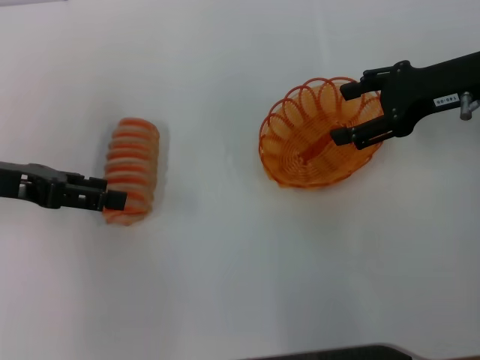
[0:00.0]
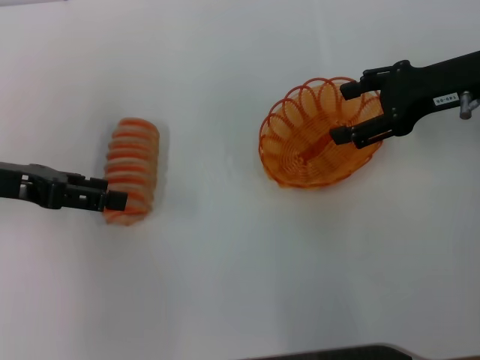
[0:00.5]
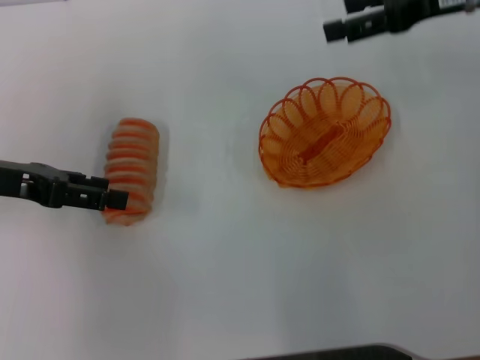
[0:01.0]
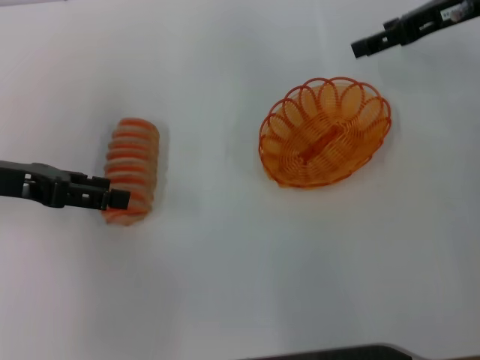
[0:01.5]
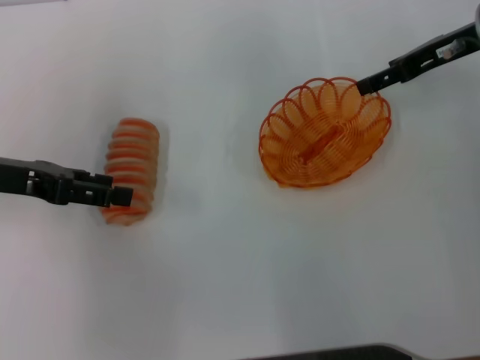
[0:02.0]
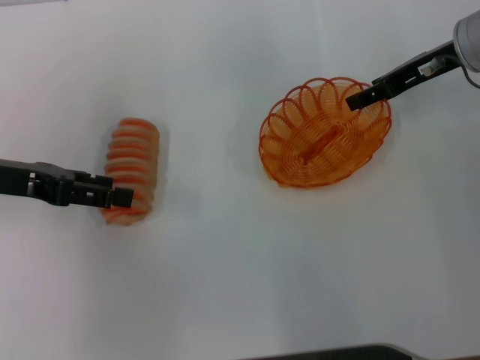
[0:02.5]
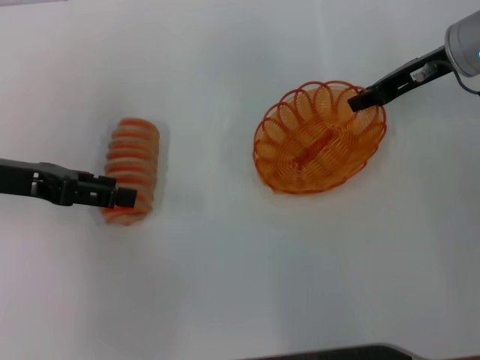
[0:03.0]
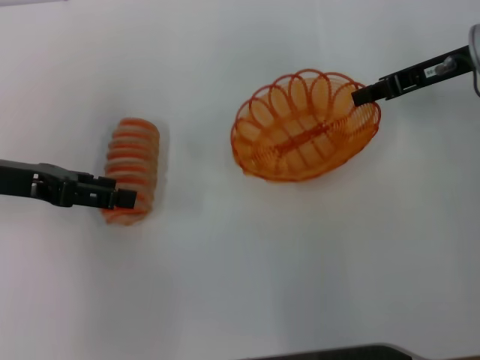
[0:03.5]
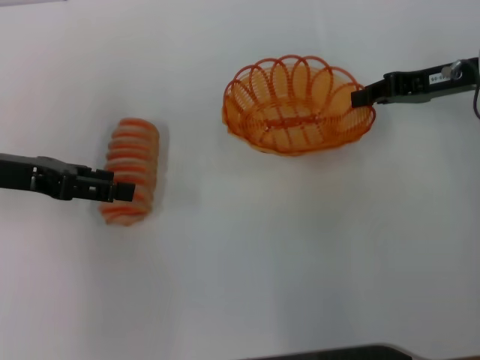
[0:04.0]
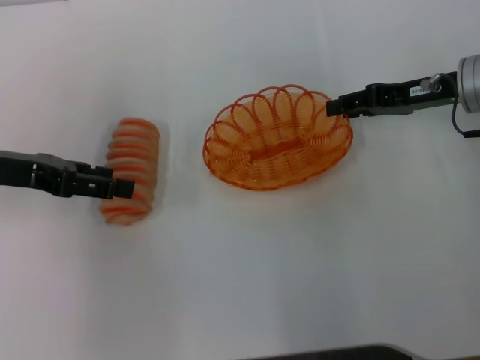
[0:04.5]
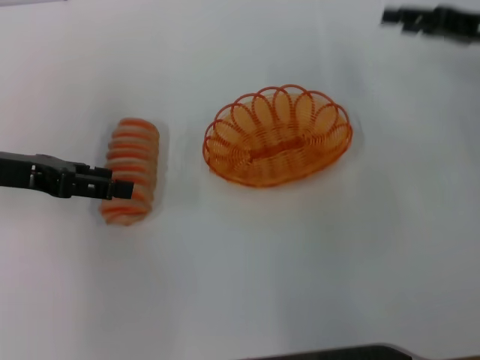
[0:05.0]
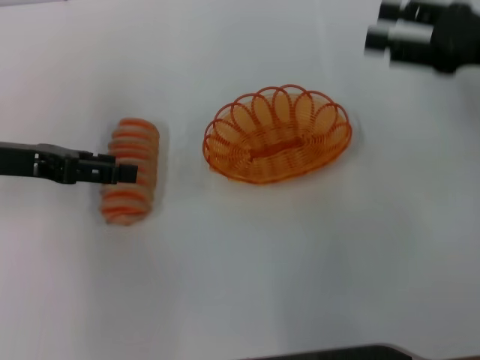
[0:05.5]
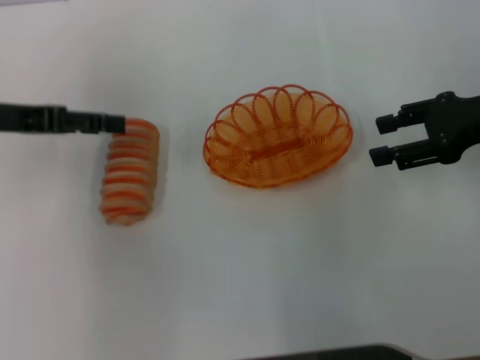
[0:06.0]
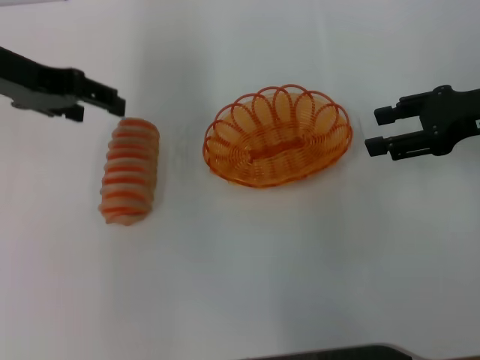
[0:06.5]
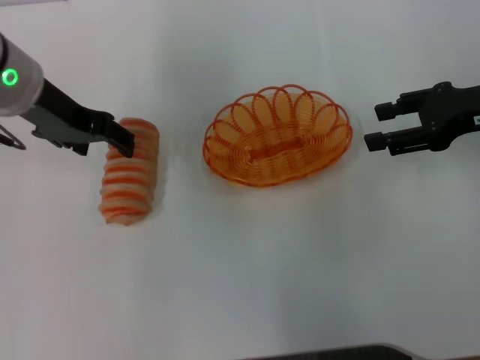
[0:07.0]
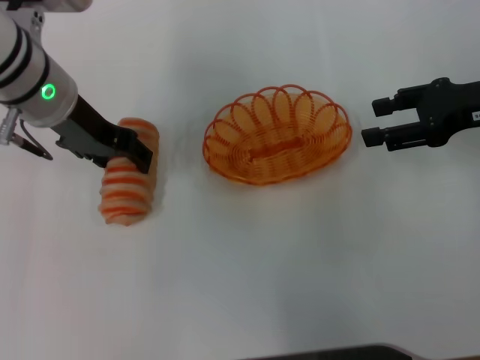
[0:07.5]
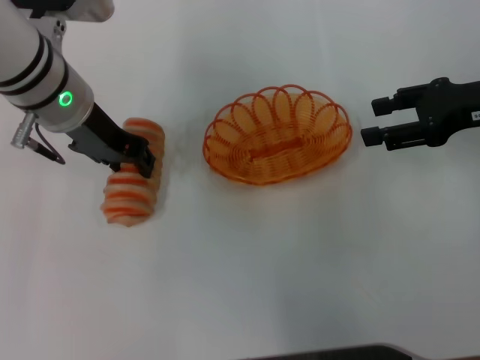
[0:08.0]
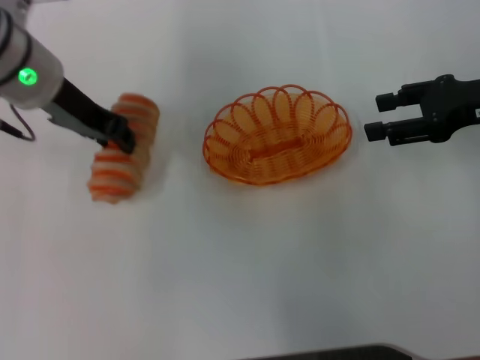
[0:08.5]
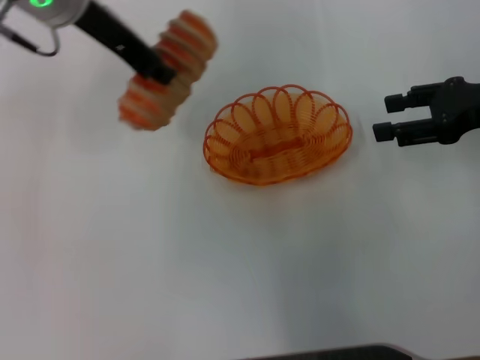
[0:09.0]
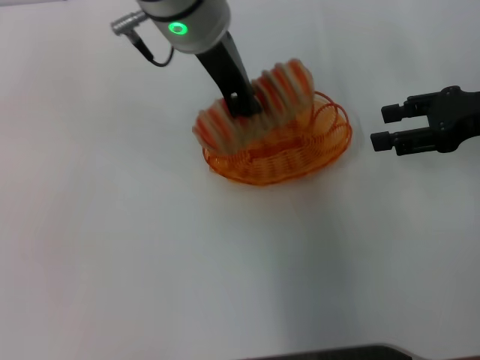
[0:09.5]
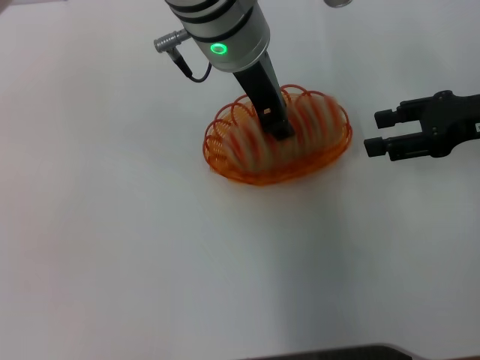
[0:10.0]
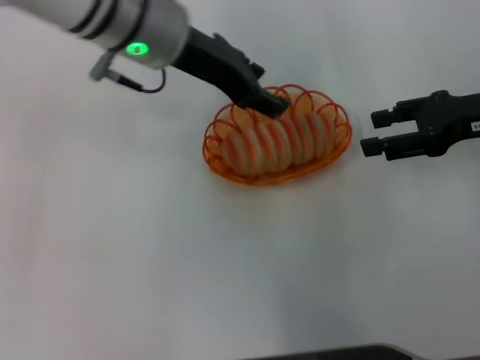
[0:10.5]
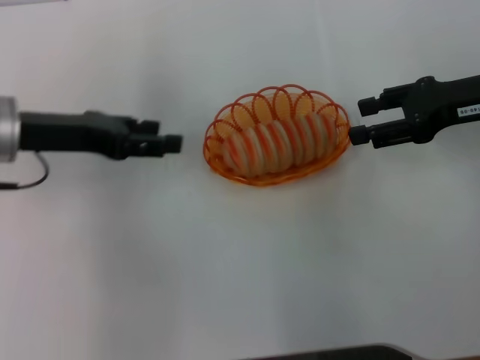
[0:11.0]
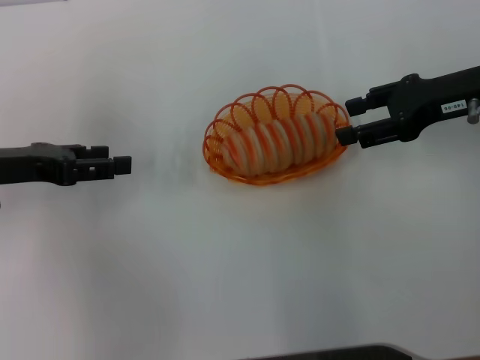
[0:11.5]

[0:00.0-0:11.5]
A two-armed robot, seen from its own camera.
Step, 0:00.0 to 0:03.5: Pick up the basket with the right gripper.
Step, 0:04.0 to 0:05.0: Place the basket in the center of view with the right gripper.
Step, 0:05.5 to 0:08.5: Pick up the long bread with the left gripper.
Step, 0:09.0 to 0:10.5: Place the long bread into the basket with the left gripper.
0:00.0 to 0:02.0: The right gripper shifts approximately 5 cm forward.
0:02.0 to 0:04.0: The right gripper closes.
0:04.0 to 0:06.0: The right gripper is displaced backward by approximately 5 cm, and opens.
0:06.0 to 0:07.5: The left gripper shifts about 10 cm to the right.
0:07.5 to 0:09.5: The left gripper goes approximately 15 cm to the right and upward, and closes.
0:09.5 to 0:11.5: The left gripper is displaced to the left and downward by roughly 30 cm, and opens its fingers.

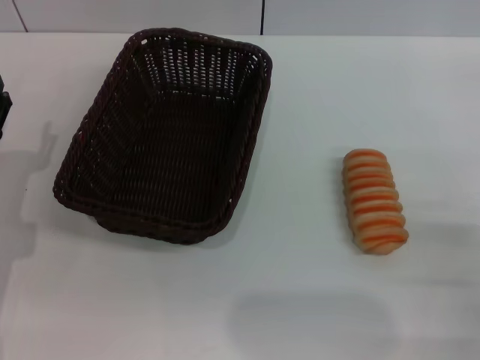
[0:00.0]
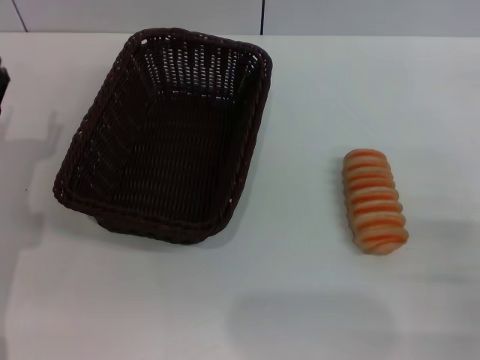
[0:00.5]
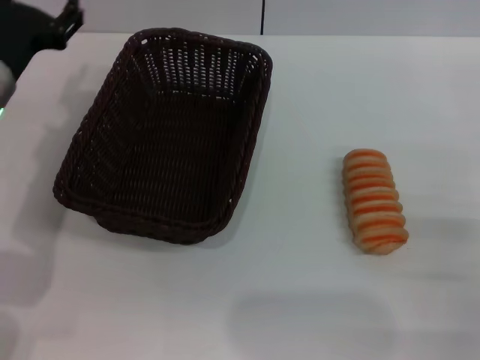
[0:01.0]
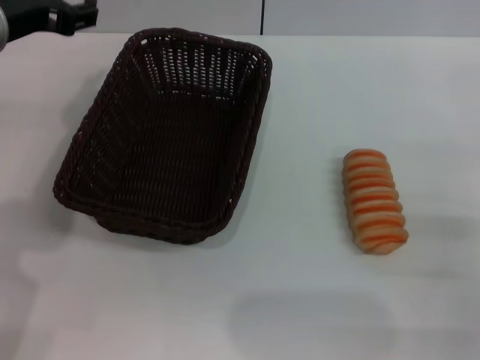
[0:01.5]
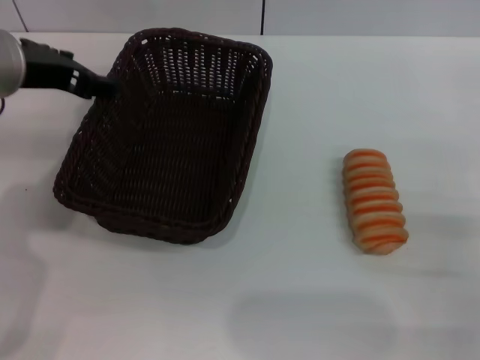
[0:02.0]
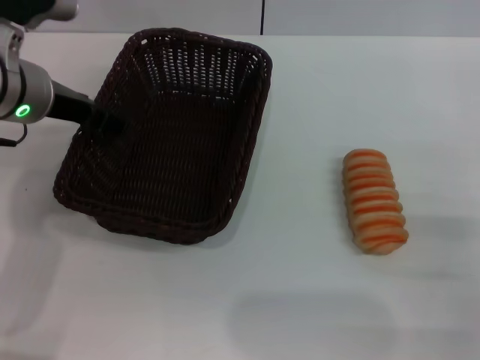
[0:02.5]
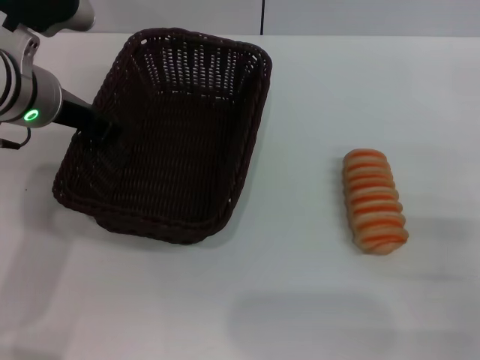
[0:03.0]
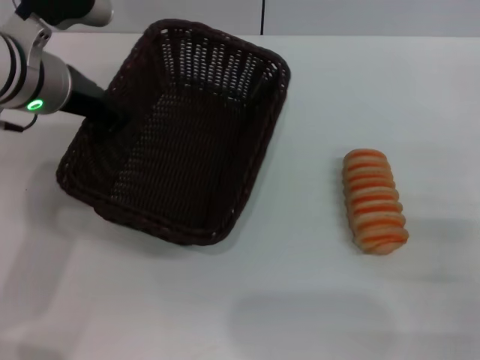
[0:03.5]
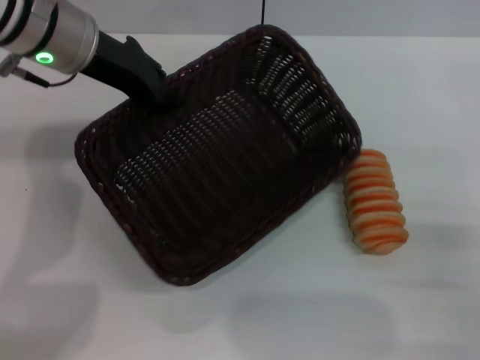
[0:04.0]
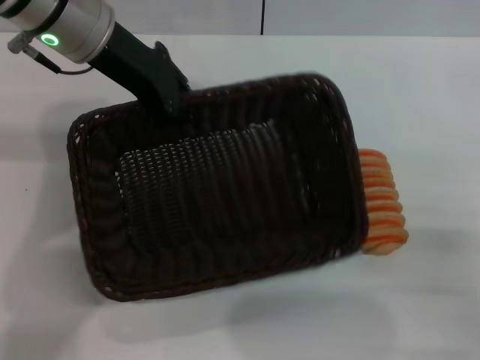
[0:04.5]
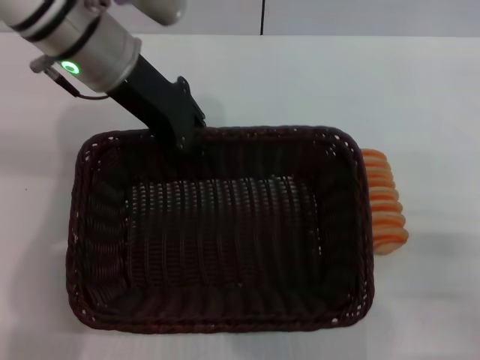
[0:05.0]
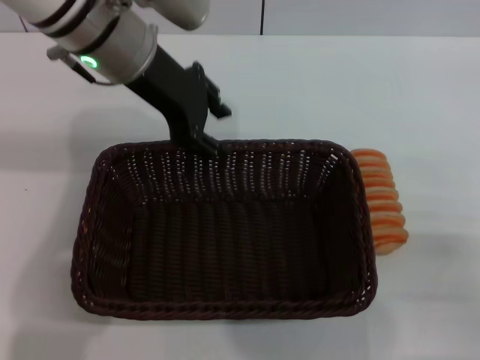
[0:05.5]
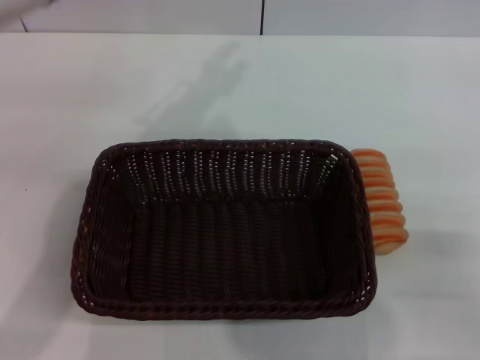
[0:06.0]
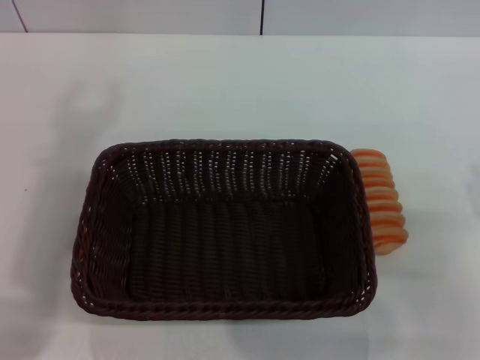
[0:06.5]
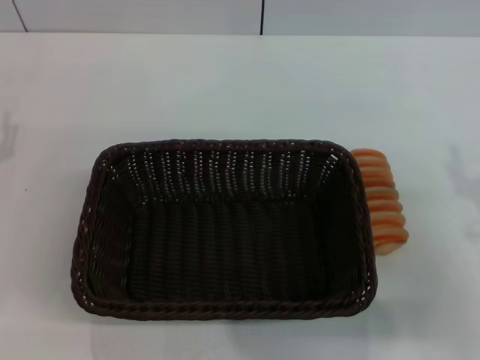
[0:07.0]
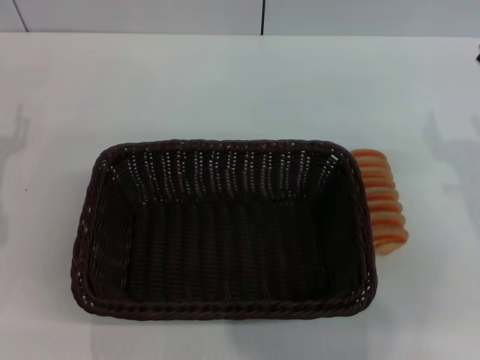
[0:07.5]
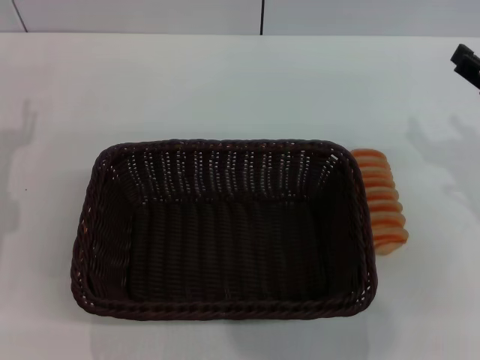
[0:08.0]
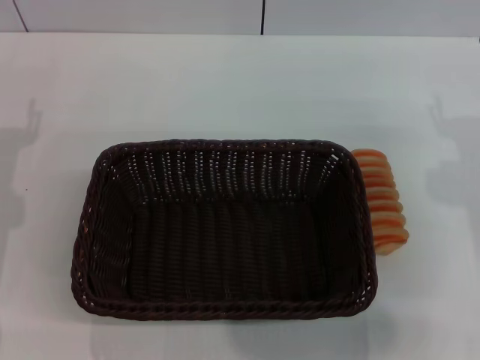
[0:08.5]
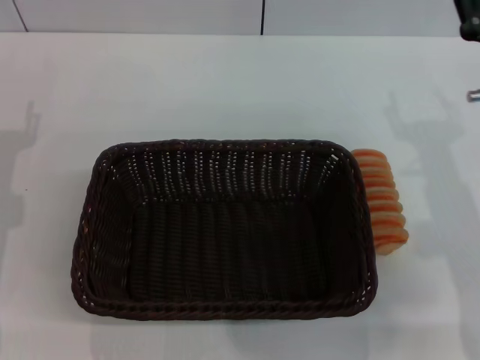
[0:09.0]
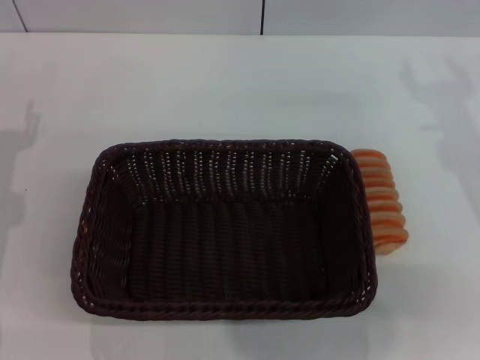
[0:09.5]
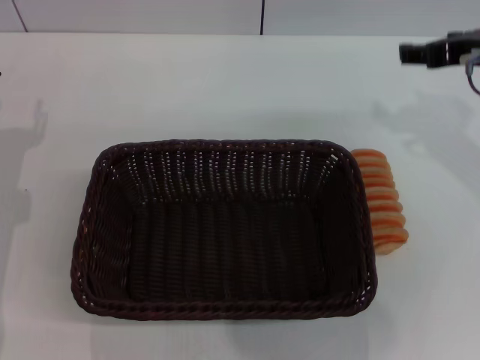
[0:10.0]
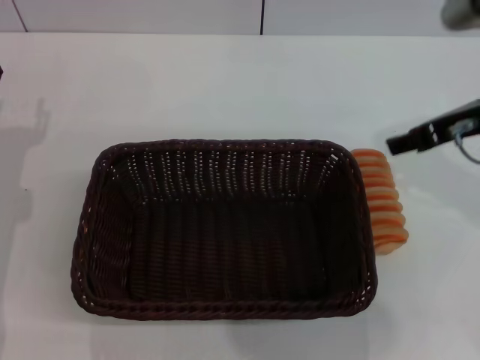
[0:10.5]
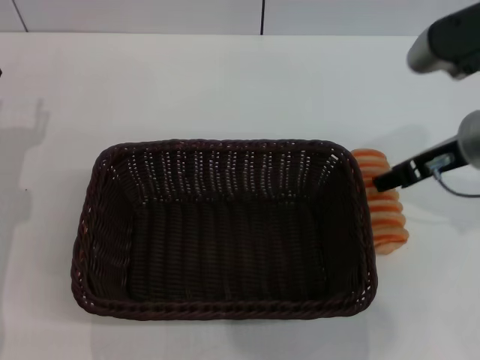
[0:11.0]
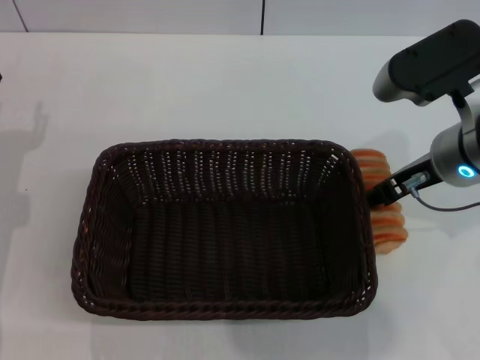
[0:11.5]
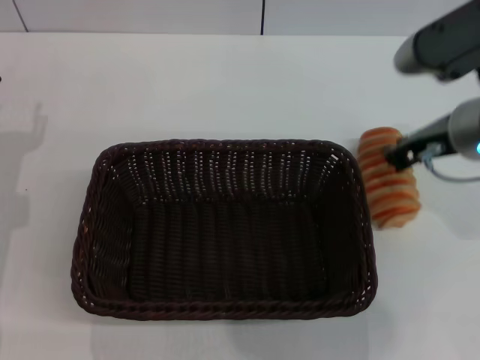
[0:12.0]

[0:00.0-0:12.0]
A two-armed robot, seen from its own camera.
Step, 0:00.0 to 0:03.0: Grasp the basket with the left gripper.
Step, 0:04.0 to 0:05.5: Place the basket in the center of the table with the left gripper.
0:00.0 to 0:02.0: The left gripper moves upward, forward and to the right, some 20 cm.
0:02.0 to 0:04.0: The left gripper shifts some 5 cm forward, and closes.
0:04.0 to 0:06.0: The left gripper shifts some 10 cm upward and to the right, and opens.
0:08.0 to 0:10.0: The right gripper travels forward and upward by roughly 10 cm.
0:10.0 to 0:12.0: The right gripper shifts by about 5 cm, and closes up.

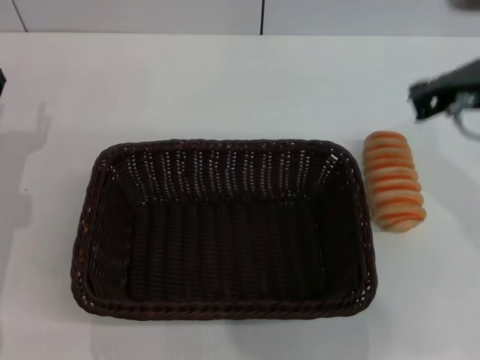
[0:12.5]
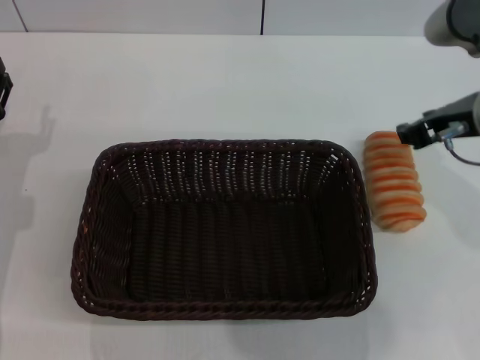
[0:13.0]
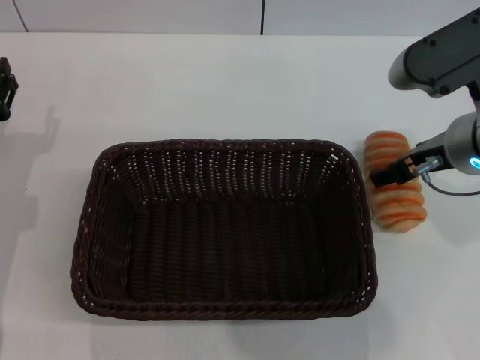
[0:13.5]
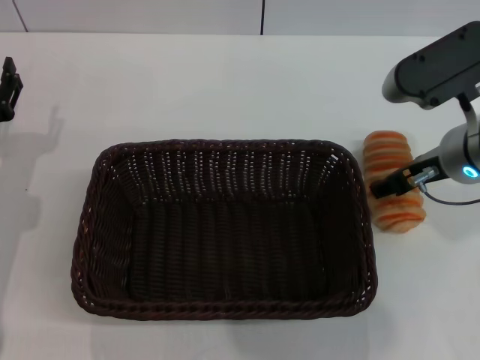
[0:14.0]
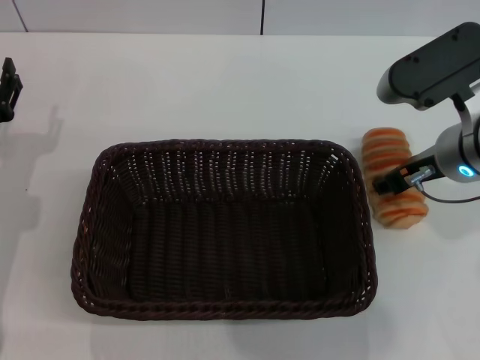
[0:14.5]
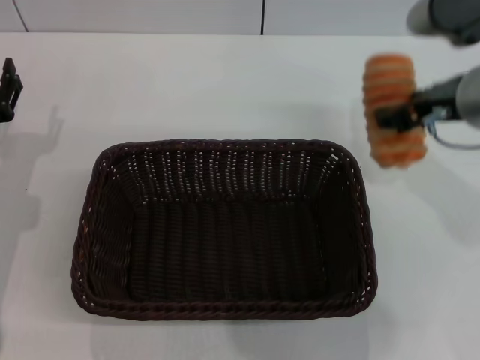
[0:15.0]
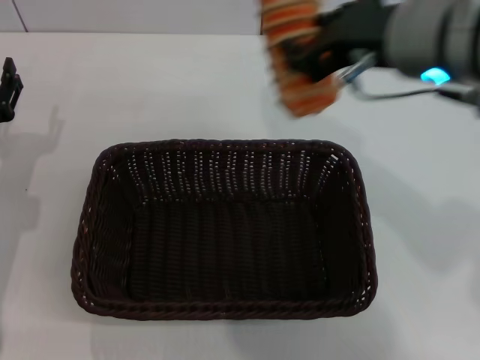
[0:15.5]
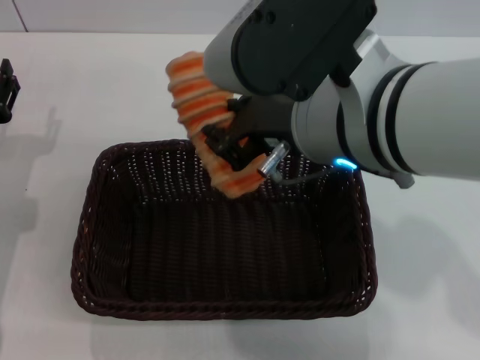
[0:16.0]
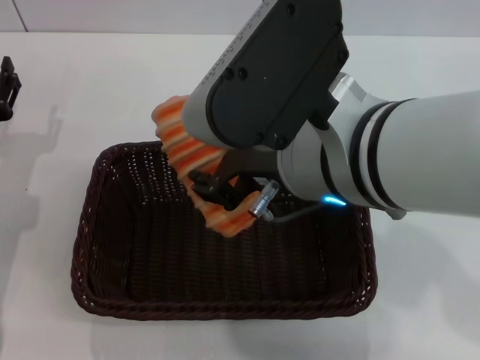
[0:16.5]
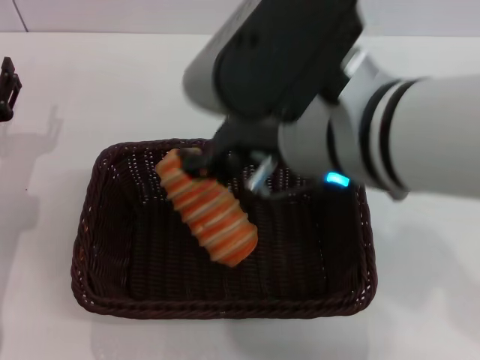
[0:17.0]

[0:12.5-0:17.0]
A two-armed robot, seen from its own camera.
0:12.5 to 0:14.5: The right gripper goes roughly 10 cm downward, and opens up.
0:14.5 to 0:17.0: The right gripper moves to the left, upward and backward, approximately 20 cm, and closes, then reopens.
